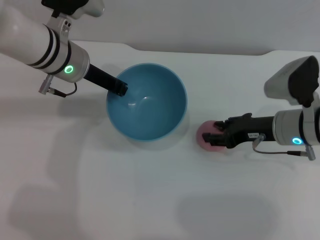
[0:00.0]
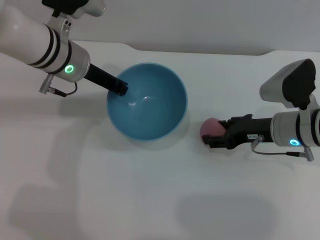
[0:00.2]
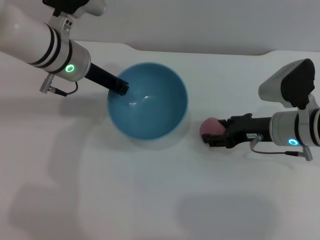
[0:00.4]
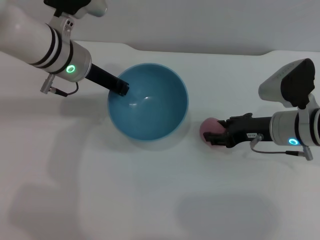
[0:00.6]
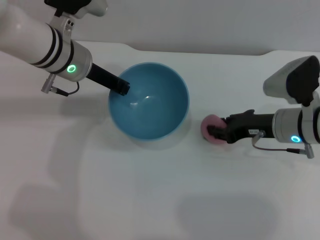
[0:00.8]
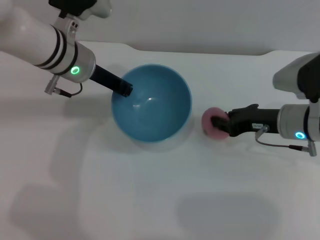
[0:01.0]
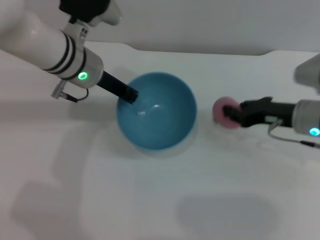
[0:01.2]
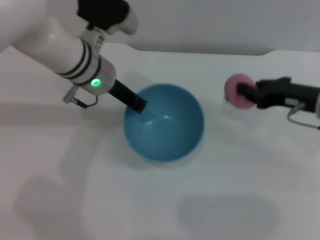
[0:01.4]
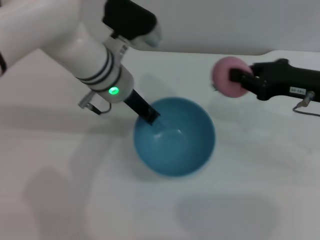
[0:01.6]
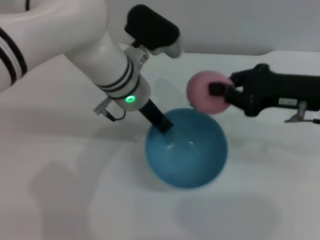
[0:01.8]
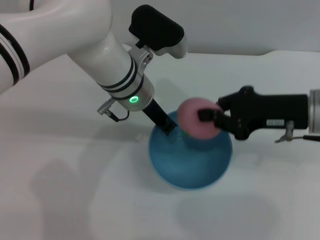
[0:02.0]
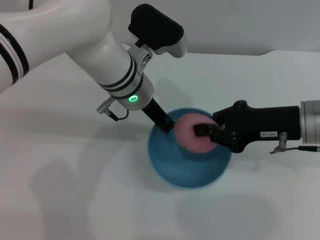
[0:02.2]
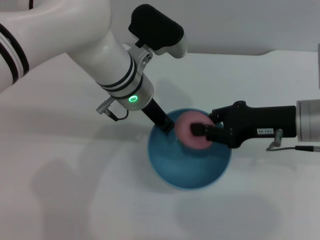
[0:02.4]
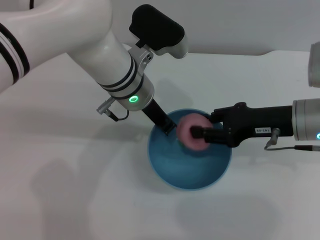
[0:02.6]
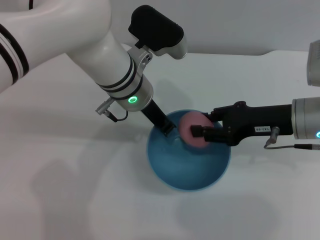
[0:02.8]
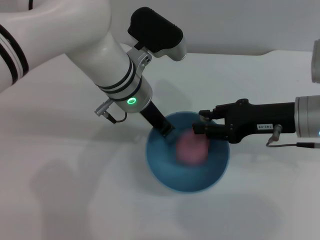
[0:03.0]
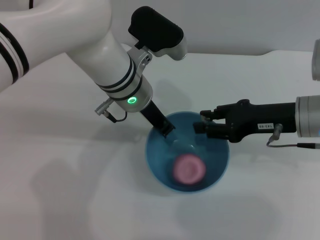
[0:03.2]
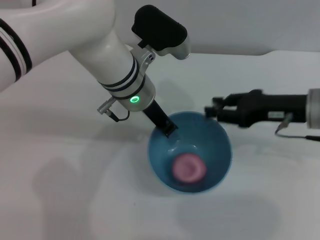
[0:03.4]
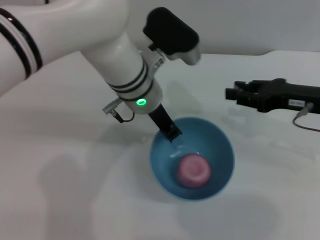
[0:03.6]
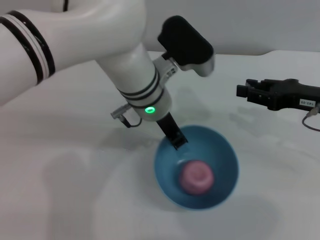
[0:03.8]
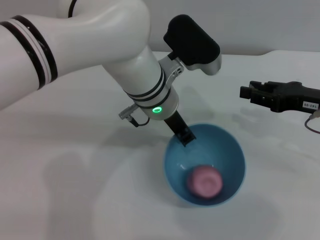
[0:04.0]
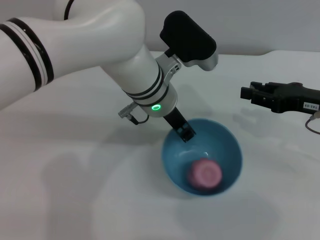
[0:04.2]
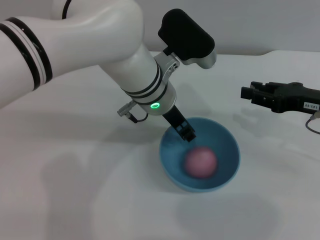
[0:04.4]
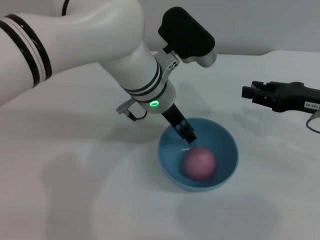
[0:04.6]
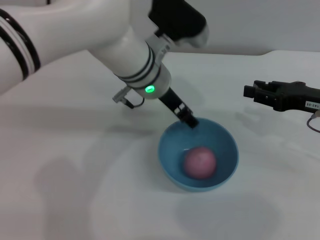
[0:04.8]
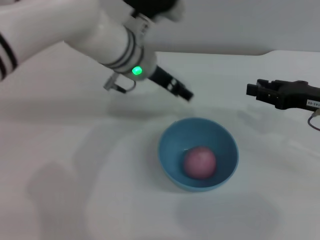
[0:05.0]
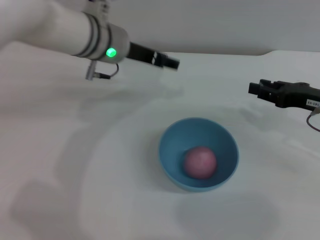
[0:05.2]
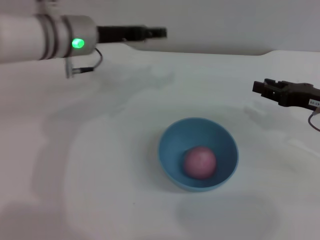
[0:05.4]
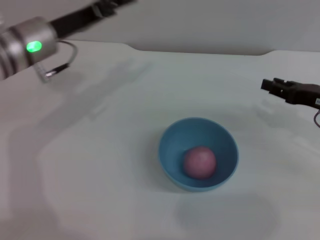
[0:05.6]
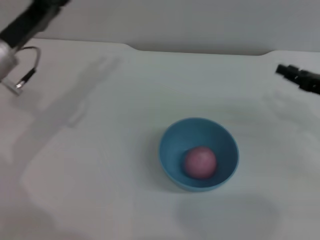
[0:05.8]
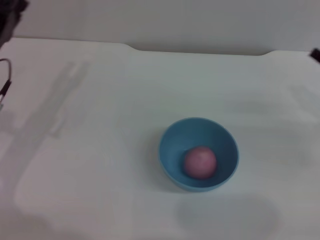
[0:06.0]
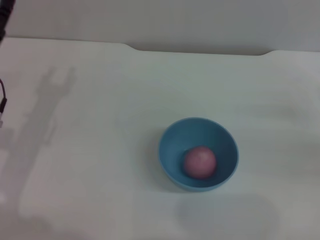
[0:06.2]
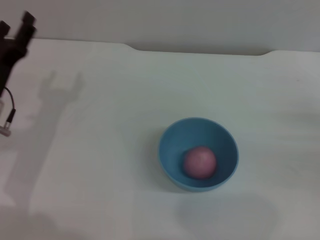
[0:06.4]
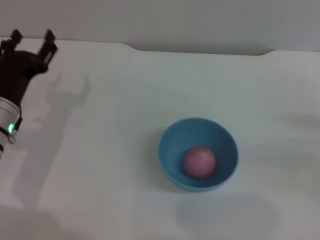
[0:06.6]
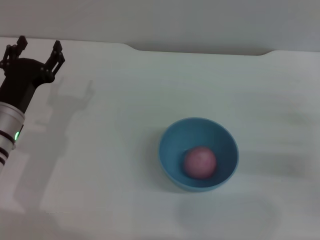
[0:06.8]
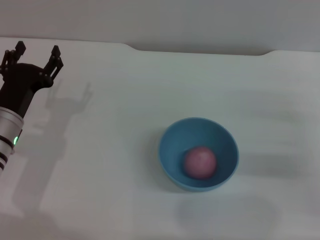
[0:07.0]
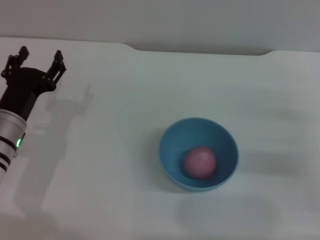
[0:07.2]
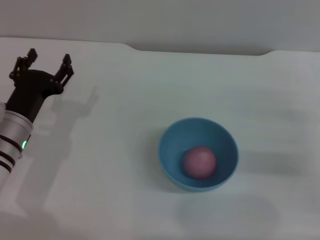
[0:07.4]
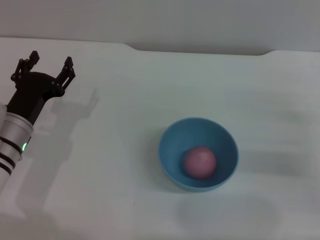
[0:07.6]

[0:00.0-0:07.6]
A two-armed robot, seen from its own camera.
Task of the whole recording: put the peach into the blue bowl and pour it out repeatedly.
Step, 0:01.4 to 0:03.0: Place the peach into the bowl.
Step, 0:03.2 to 0:04.6: Place the bowl on the table.
0:00.0 to 0:01.6: The left gripper moves to the right, some 5 cm. Meanwhile the right gripper shifts roughly 10 cm upward, and opens and closes again.
0:01.6 to 0:03.0: The right gripper opens its fingers.
0:03.0 to 0:04.6: The right gripper heads to the right, covering about 5 cm; the left gripper opens.
0:04.6 to 0:06.0: The left gripper shifts about 25 cm to the left, and opens up. The right gripper heads to the right, covering about 5 cm.
0:06.0 to 0:07.6: The left gripper moves downward, about 5 cm.
